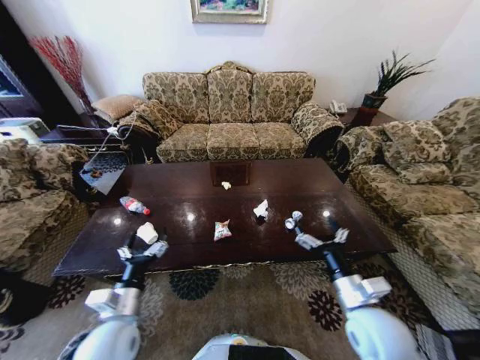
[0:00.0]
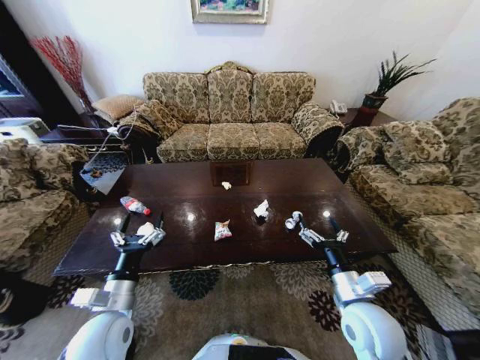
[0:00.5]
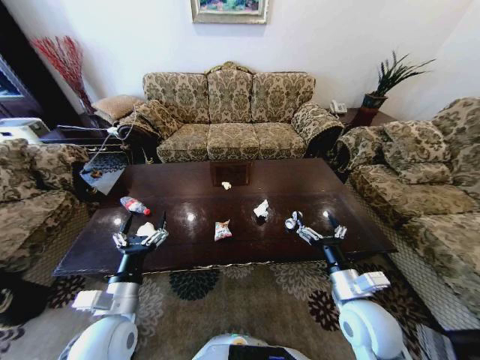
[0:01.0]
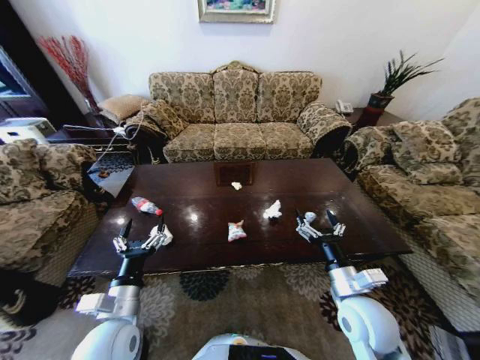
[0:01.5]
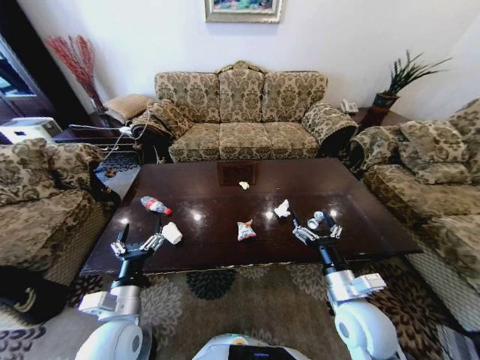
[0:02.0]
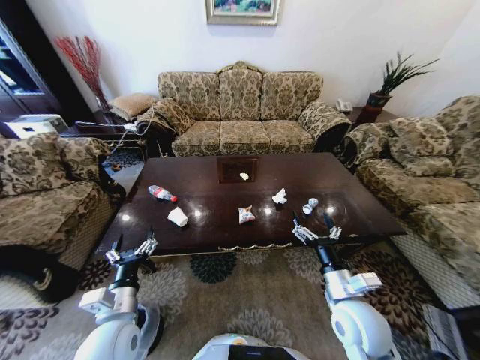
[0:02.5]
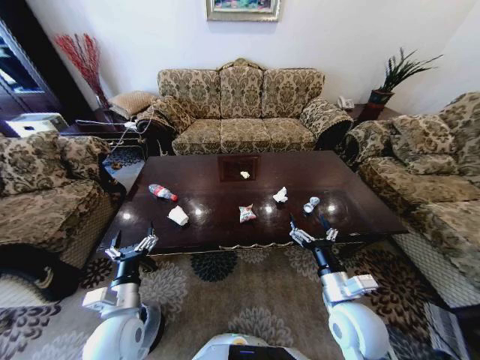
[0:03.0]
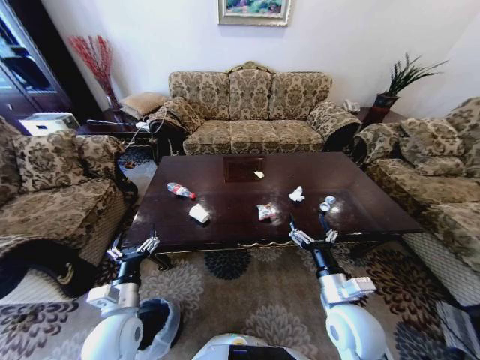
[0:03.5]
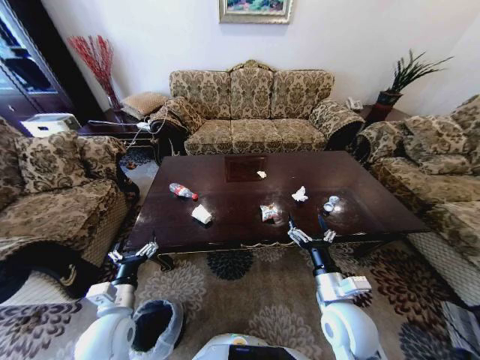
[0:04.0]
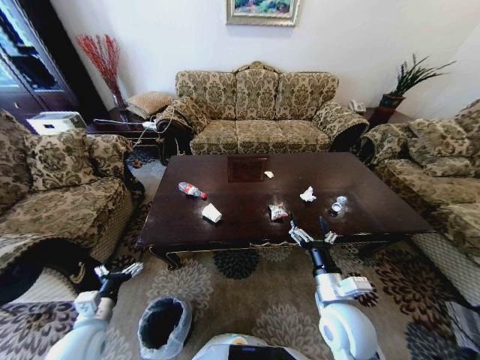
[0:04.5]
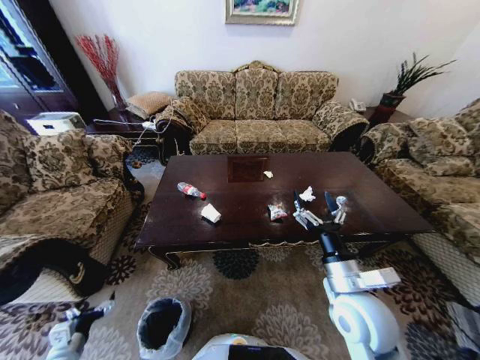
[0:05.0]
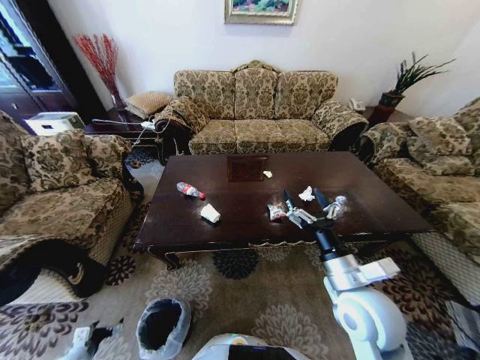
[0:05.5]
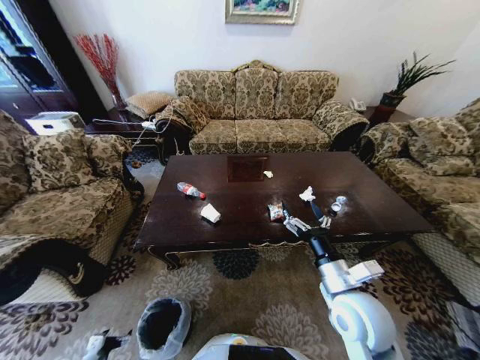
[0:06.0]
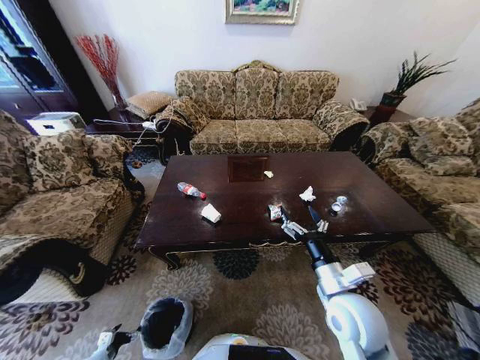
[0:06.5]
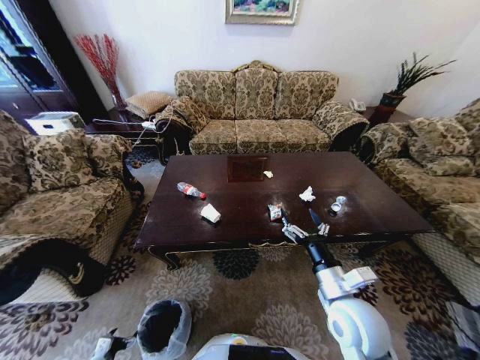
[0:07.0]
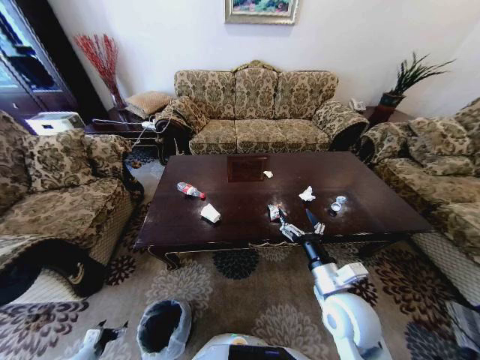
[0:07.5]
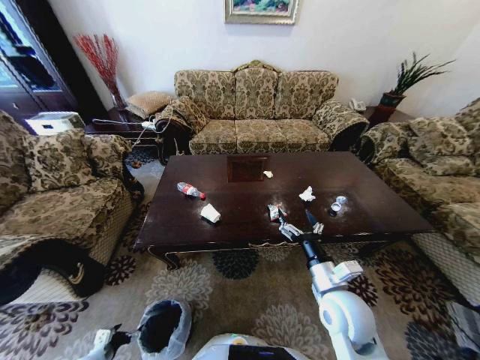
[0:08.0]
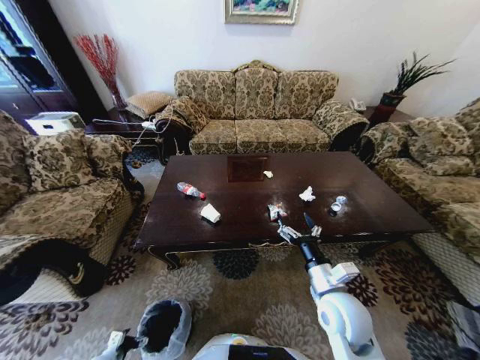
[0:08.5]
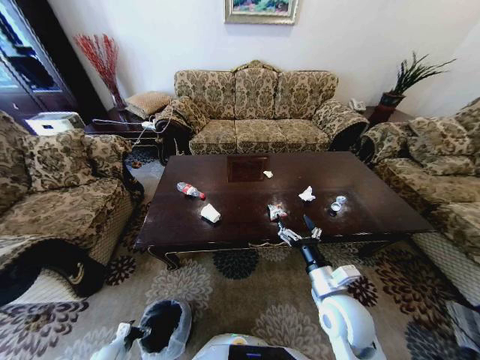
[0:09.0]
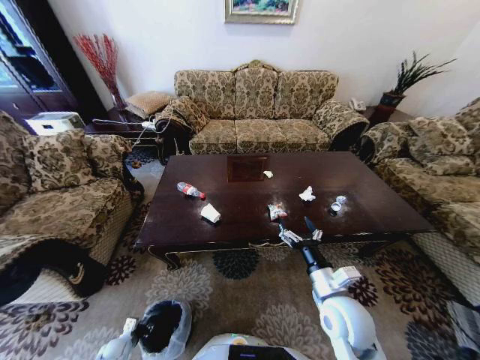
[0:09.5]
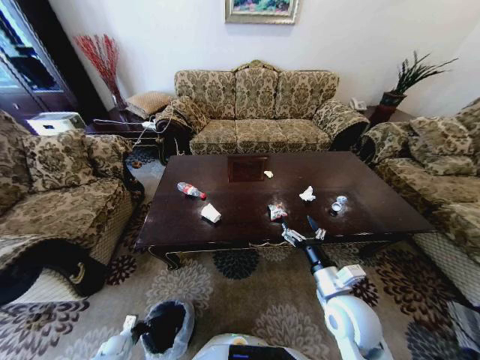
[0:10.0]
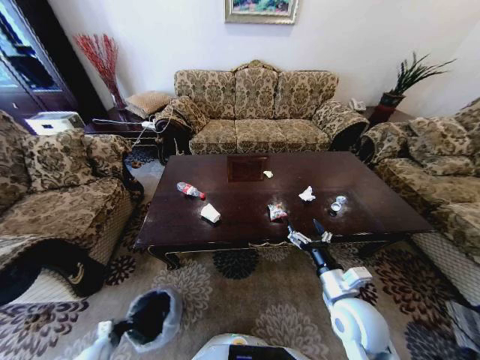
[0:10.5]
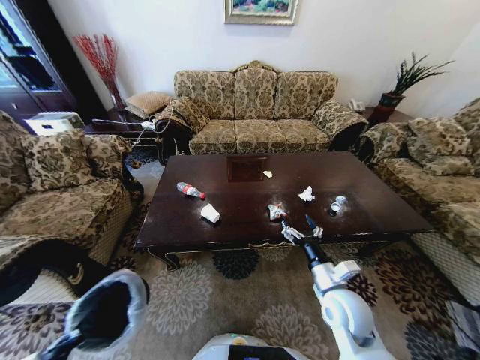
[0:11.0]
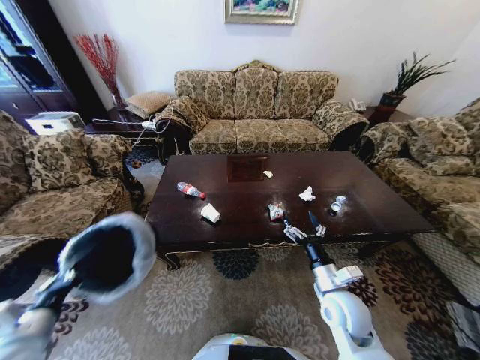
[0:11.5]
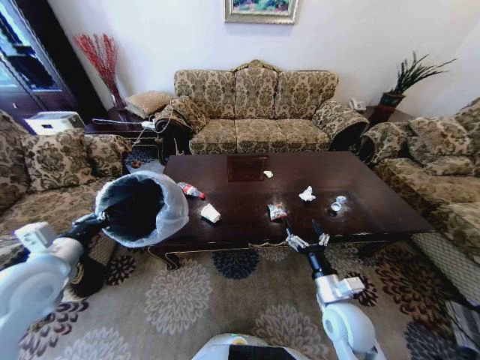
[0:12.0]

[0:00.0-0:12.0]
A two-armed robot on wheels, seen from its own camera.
Task of the whole recording: Move to the front of the table and place the trash on the table into the trash bin.
0:02.0 to 0:04.0: The left gripper shifts by some 5 cm.
0:04.0 to 0:06.0: The right gripper is displaced upward by some 5 cm; the left gripper goes about 35 cm downward and to the left.
0:06.0 to 0:08.0: The left gripper goes approximately 5 cm upward.
0:08.0 to 0:10.0: The left gripper is displaced downward and forward by some 10 cm, and closes up.
0:10.0 to 0:12.0: The left gripper shifts about 50 cm upward.

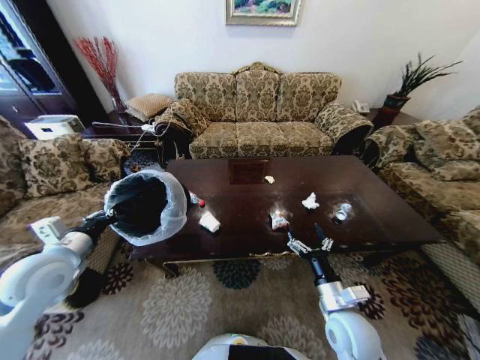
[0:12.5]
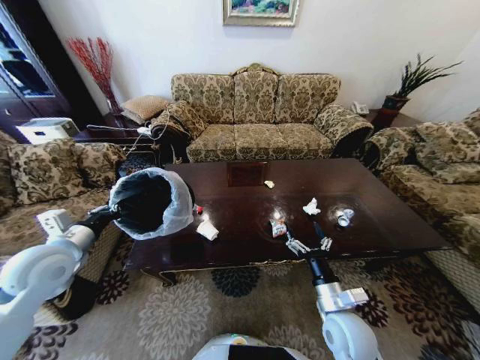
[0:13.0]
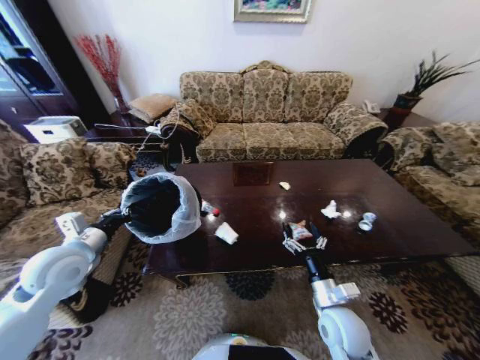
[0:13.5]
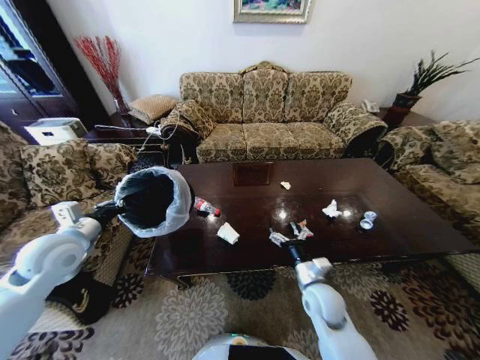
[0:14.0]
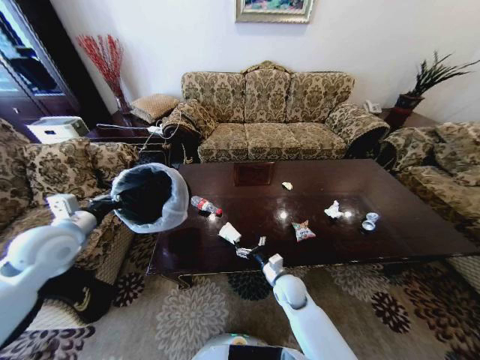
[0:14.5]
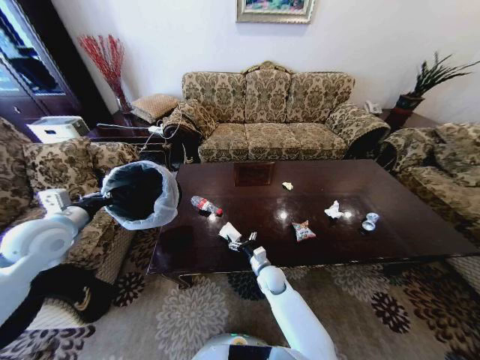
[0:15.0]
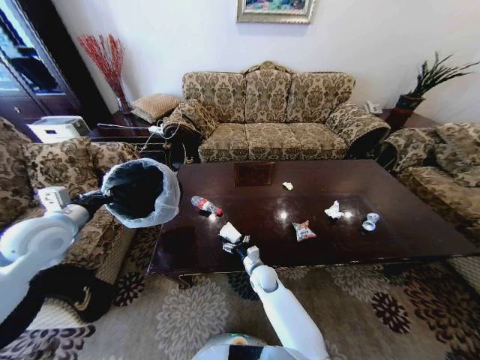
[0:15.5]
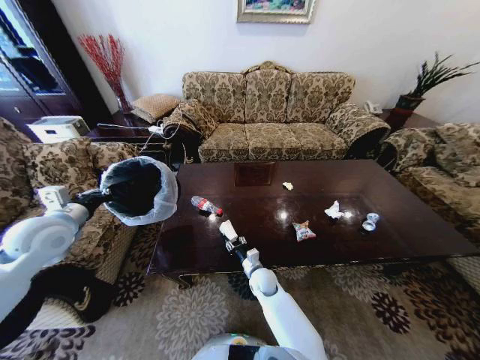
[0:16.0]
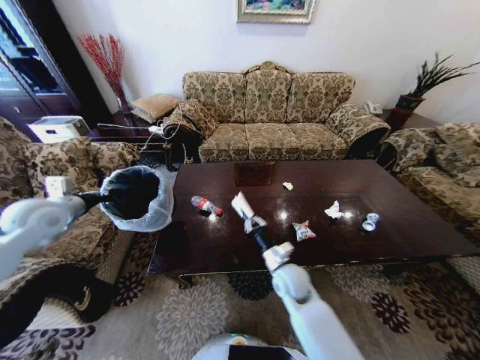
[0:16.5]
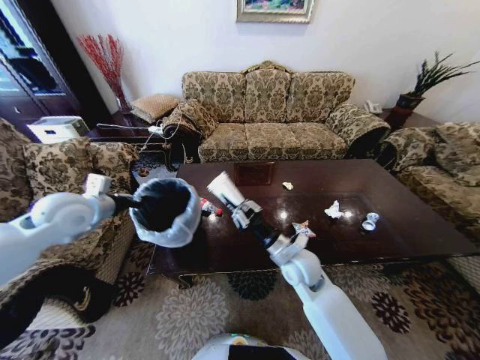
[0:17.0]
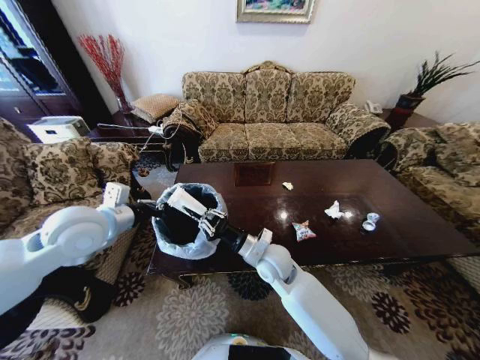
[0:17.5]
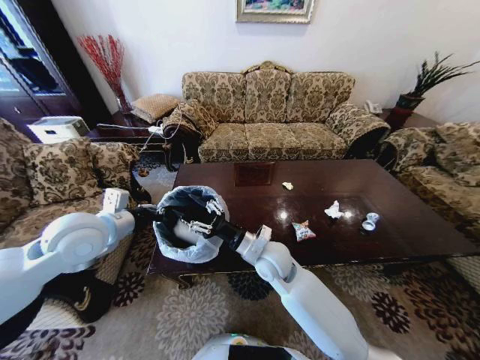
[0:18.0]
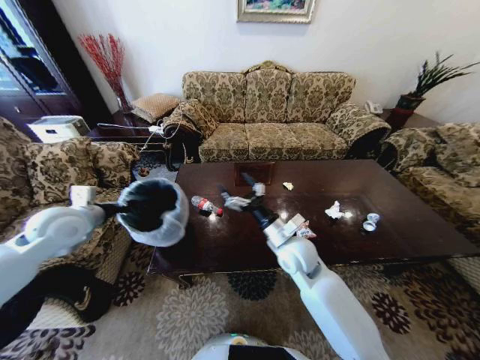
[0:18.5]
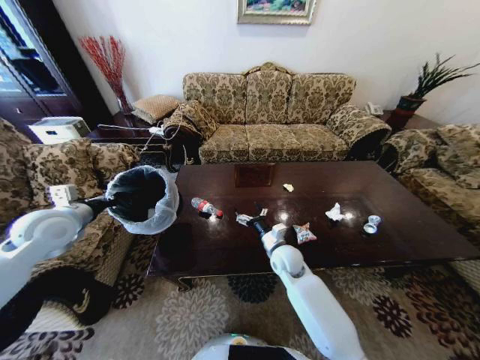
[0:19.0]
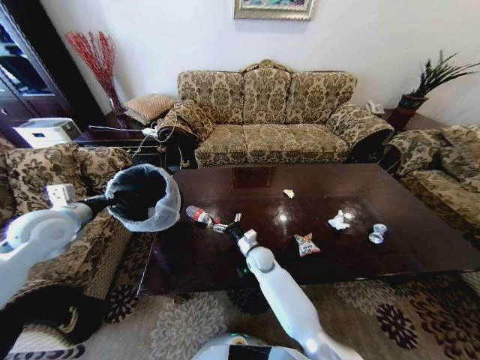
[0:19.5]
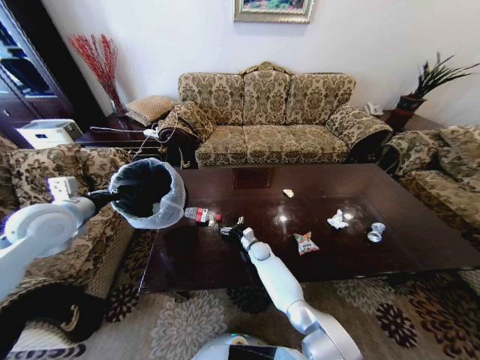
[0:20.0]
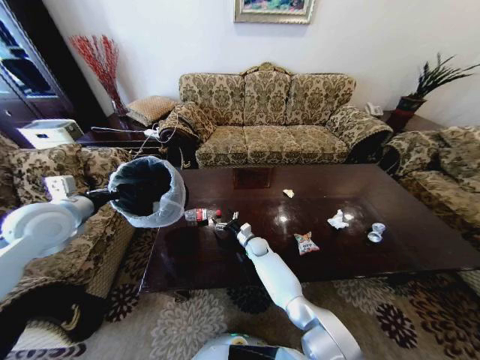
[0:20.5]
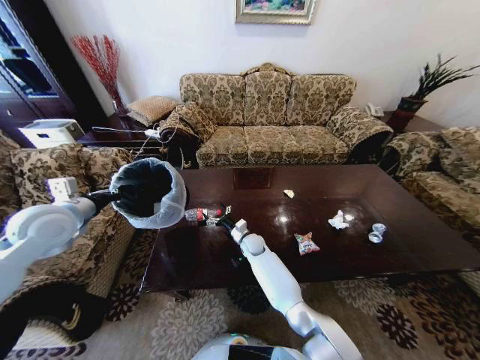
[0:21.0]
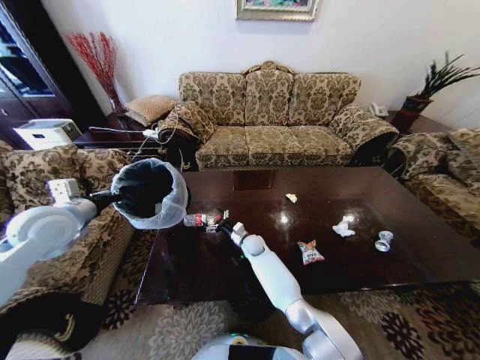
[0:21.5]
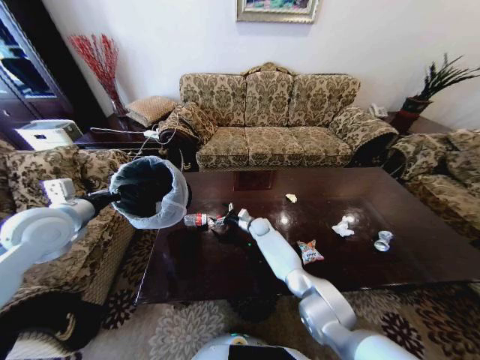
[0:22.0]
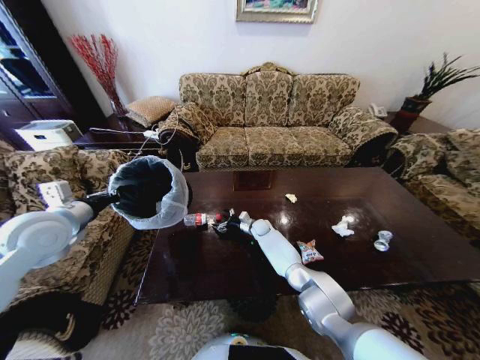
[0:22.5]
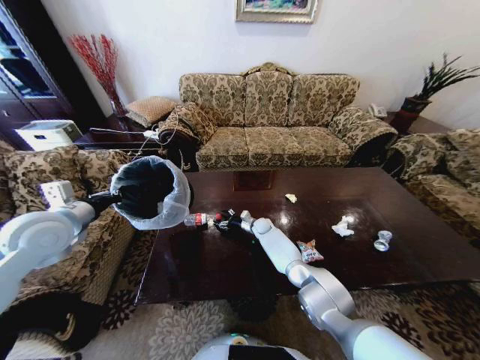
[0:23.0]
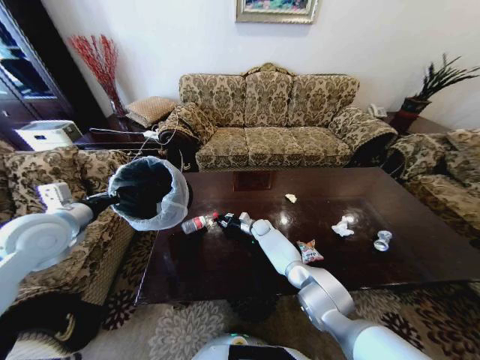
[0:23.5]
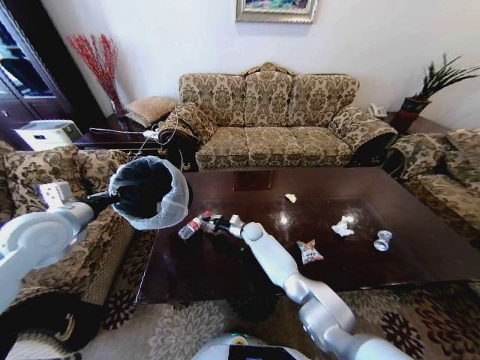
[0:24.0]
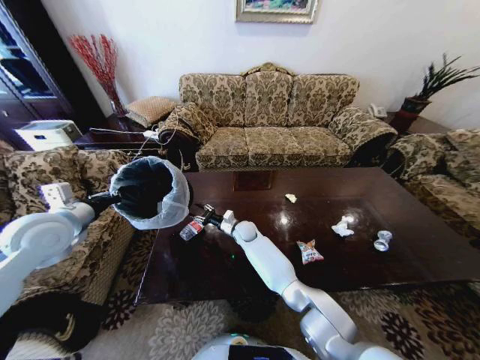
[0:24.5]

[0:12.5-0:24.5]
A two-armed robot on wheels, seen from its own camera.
Task of the whole recording: Move to the front of the table and place the trash on the table into the trash bin.
0:12.5 to 0:14.5: The right gripper shifts about 20 cm forward, downward and to the left. The left gripper ends up about 5 cm from where it was.
0:14.5 to 0:16.5: The right gripper travels upward by some 10 cm, and closes up, while the left gripper moves forward and to the left, some 10 cm.
0:16.5 to 0:18.5: The left gripper goes to the right and returns, some 15 cm each way, while the right gripper goes about 10 cm upward, and opens its fingers.
0:18.5 to 0:20.5: The right gripper shifts about 25 cm downward and forward.
0:20.5 to 0:22.5: The right gripper travels forward by about 10 cm.
0:22.5 to 0:24.5: The right gripper is displaced to the left, backward and upward by some 10 cm, and closes.

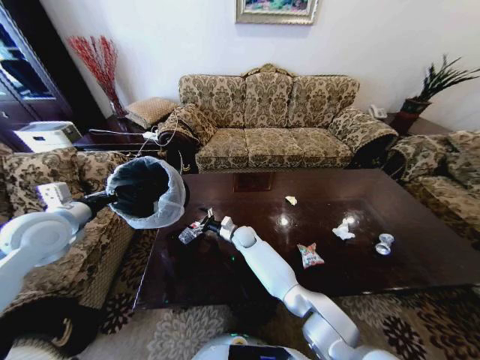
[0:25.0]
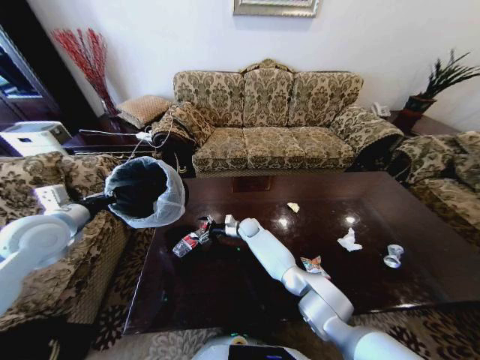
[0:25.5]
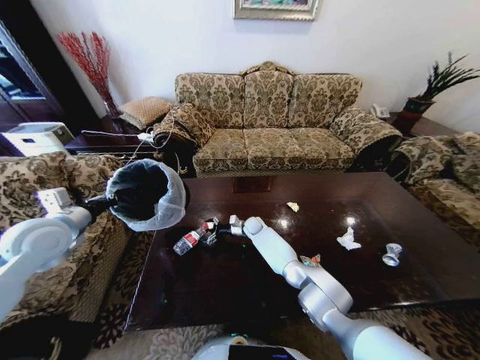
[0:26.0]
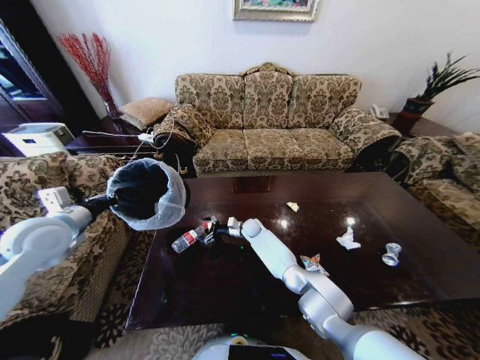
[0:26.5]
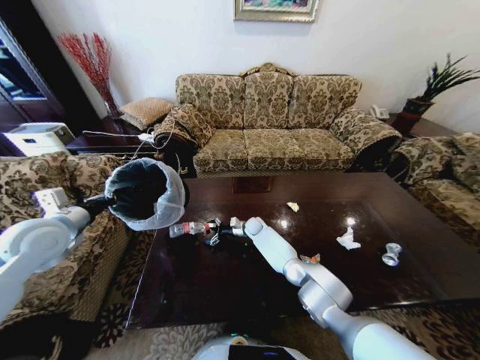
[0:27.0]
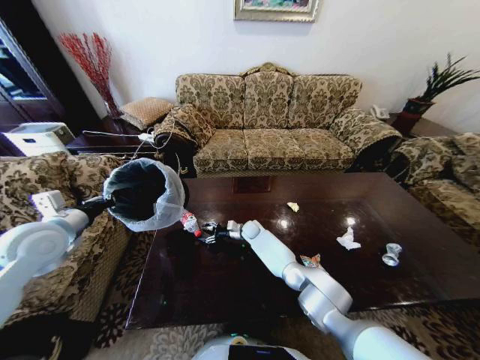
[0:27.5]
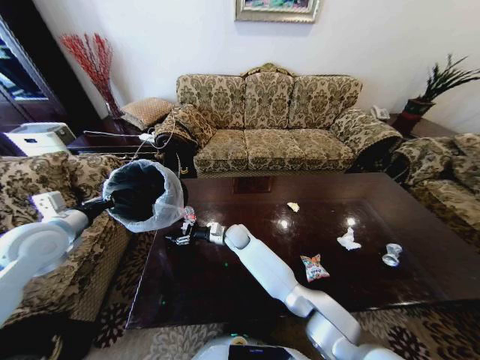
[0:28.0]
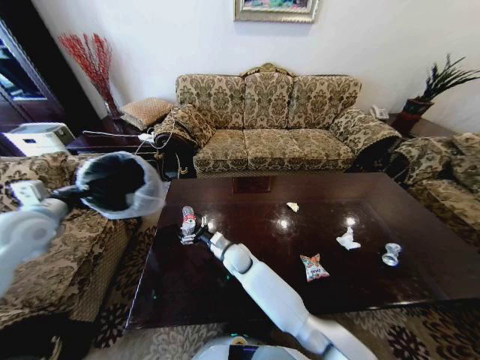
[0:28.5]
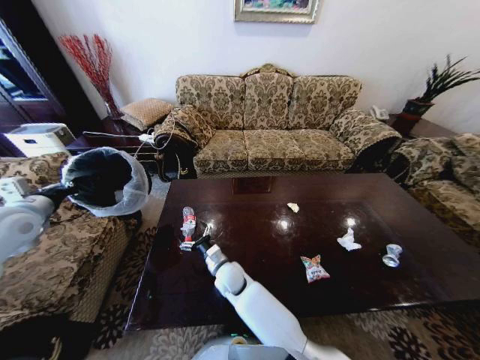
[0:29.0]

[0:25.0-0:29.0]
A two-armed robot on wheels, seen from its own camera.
Task of the whole recording: Move to the front of the table and place the trash on the table into the trash bin.
0:25.0 to 0:27.0: The right gripper travels forward and to the right by roughly 10 cm.
0:27.0 to 0:29.0: The left gripper goes about 10 cm to the left, while the right gripper moves backward and to the left, approximately 25 cm, and closes and opens again.
